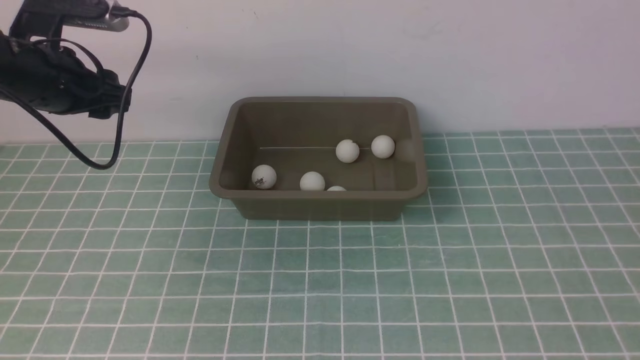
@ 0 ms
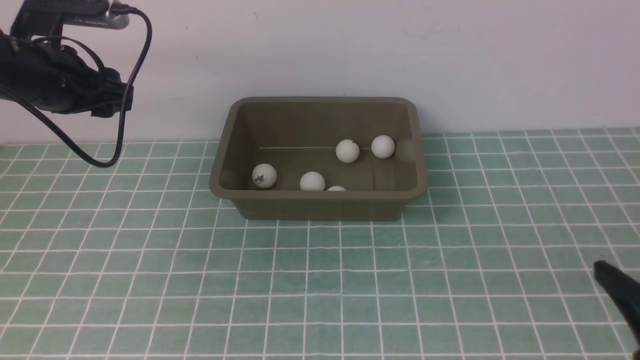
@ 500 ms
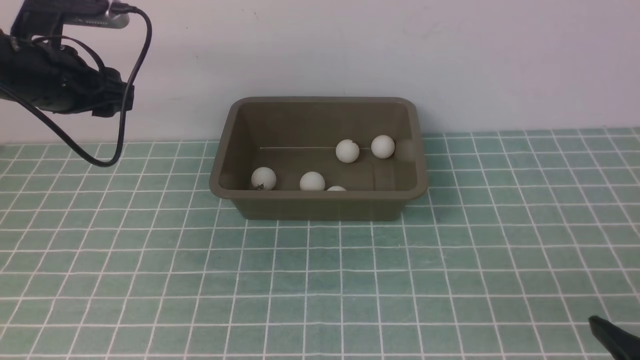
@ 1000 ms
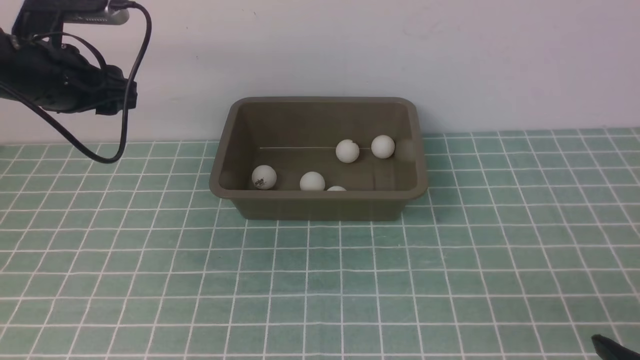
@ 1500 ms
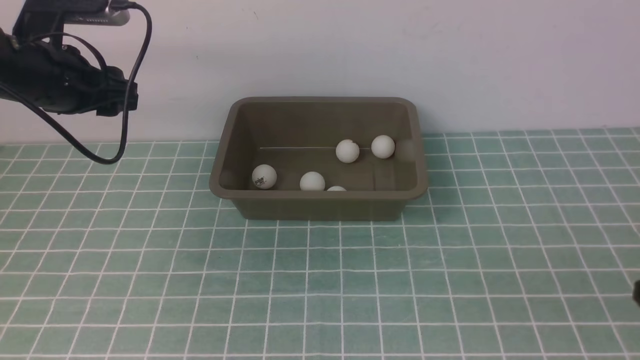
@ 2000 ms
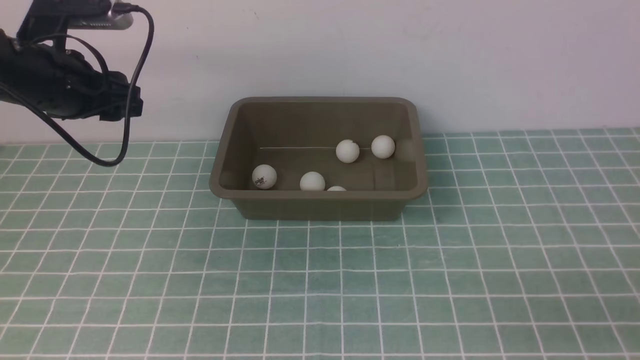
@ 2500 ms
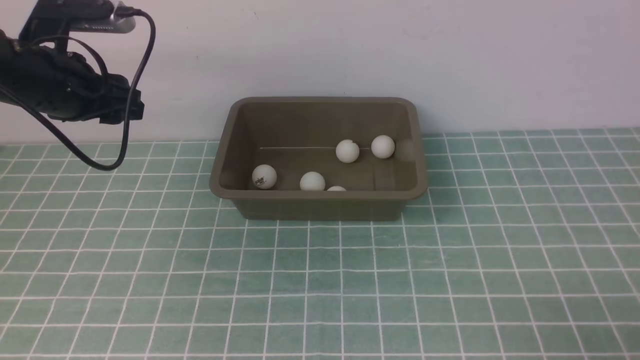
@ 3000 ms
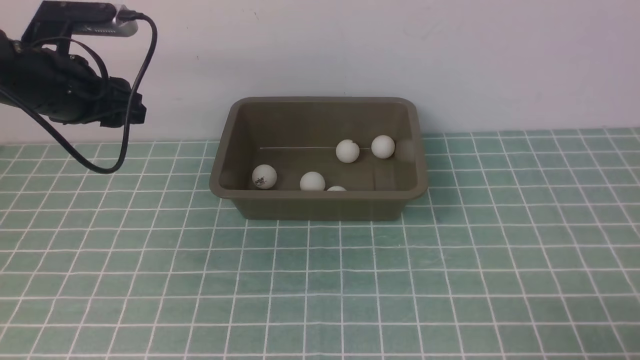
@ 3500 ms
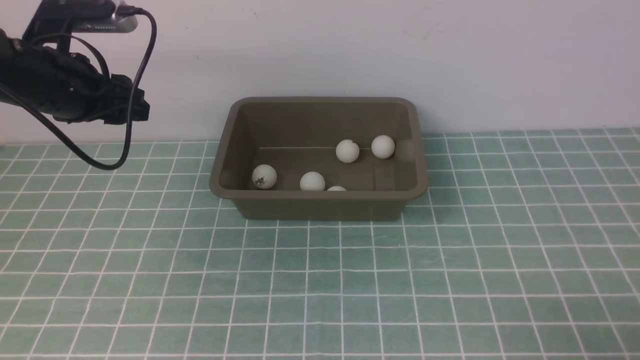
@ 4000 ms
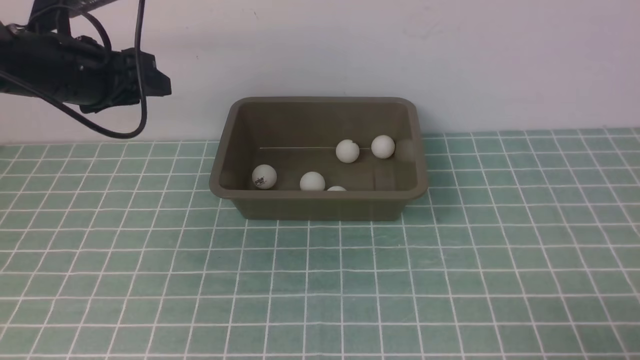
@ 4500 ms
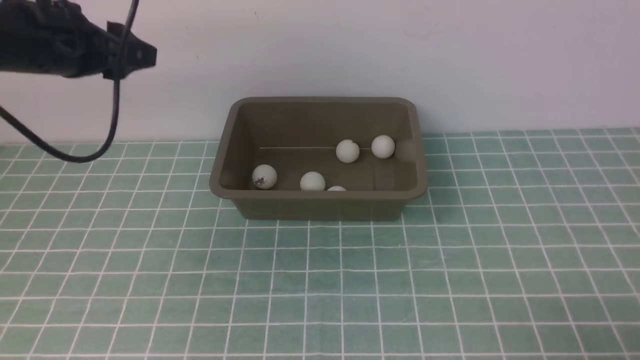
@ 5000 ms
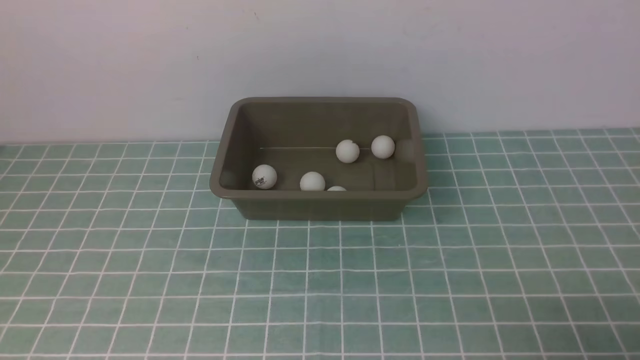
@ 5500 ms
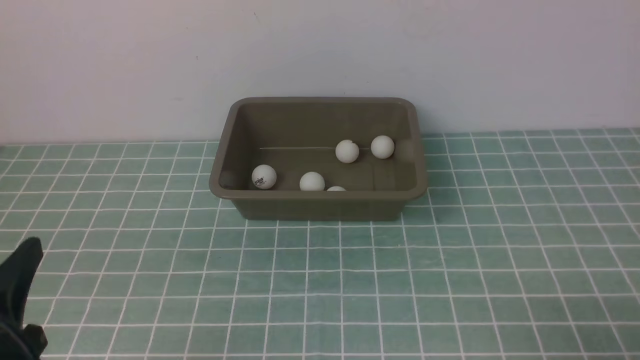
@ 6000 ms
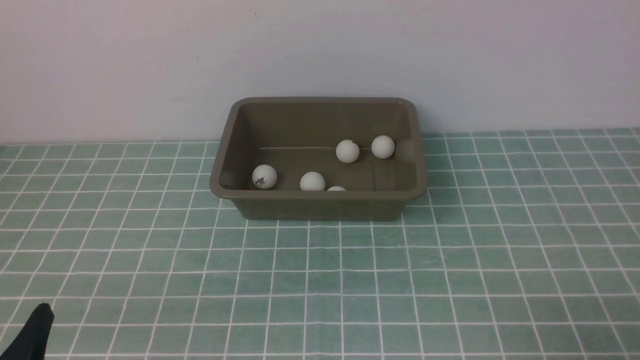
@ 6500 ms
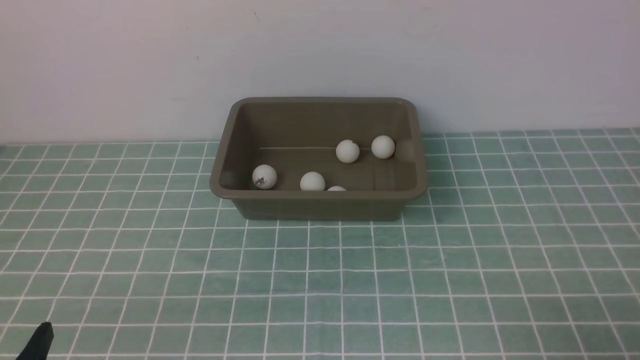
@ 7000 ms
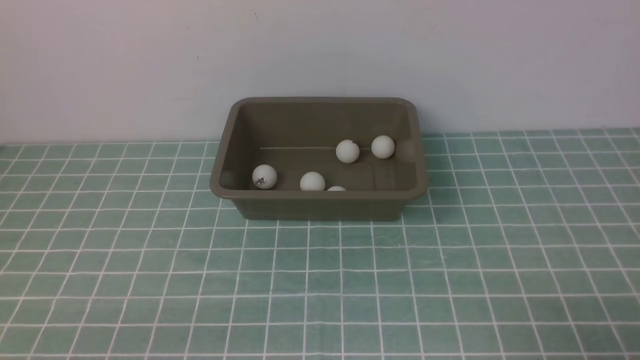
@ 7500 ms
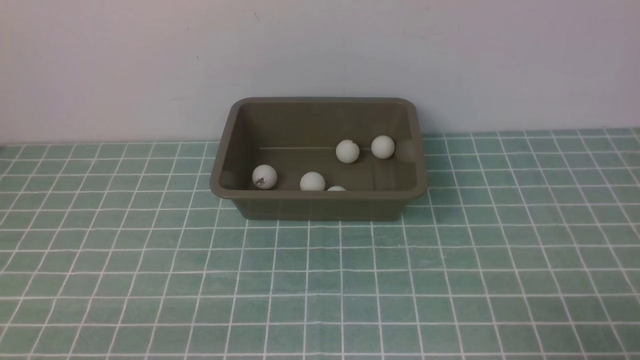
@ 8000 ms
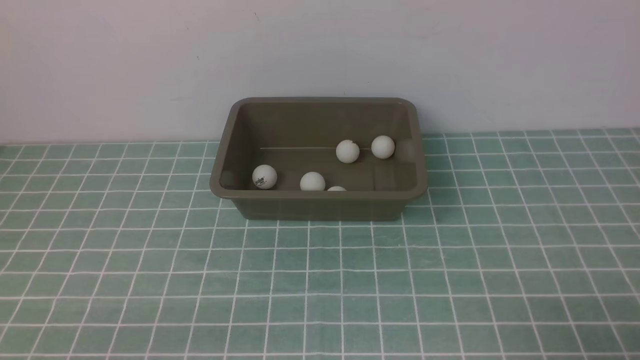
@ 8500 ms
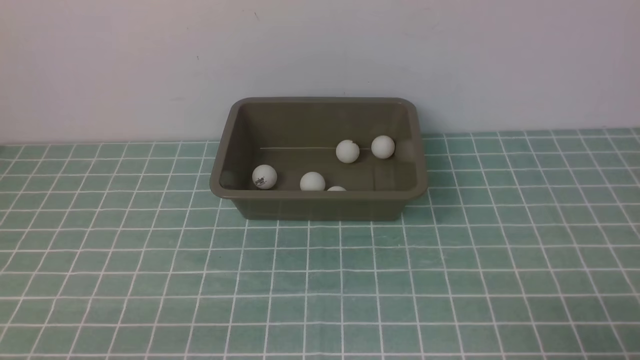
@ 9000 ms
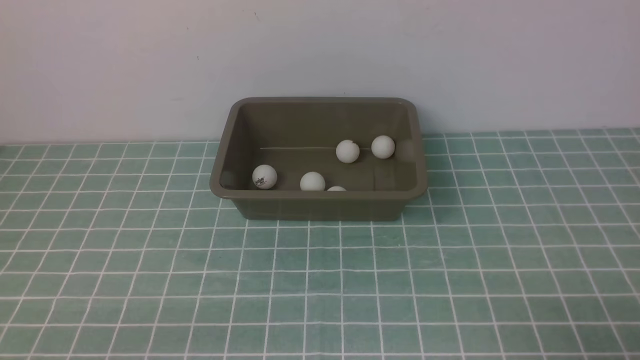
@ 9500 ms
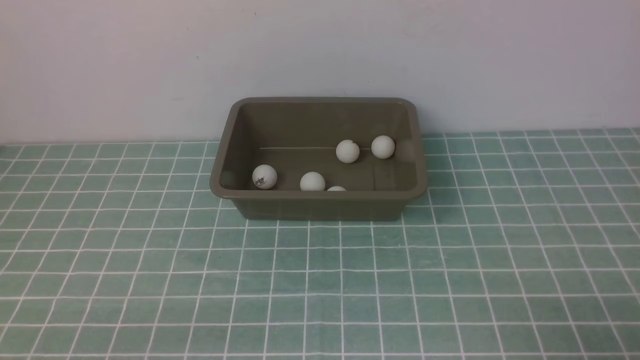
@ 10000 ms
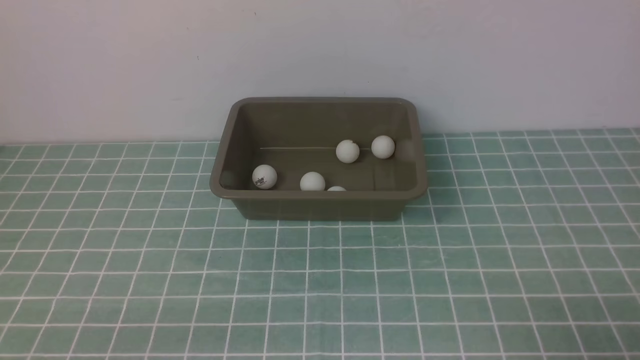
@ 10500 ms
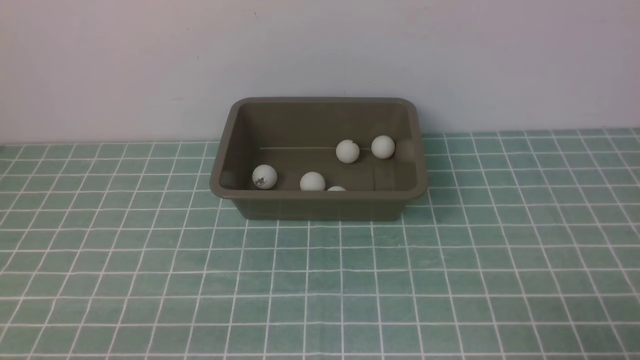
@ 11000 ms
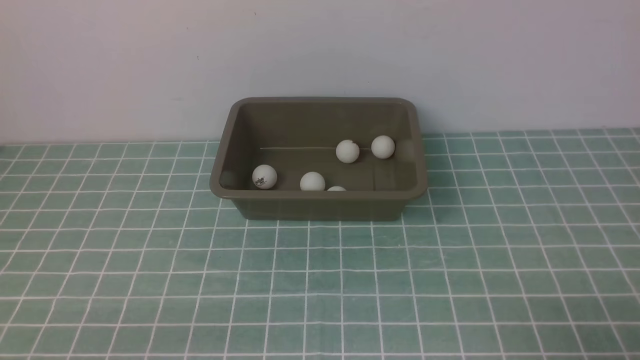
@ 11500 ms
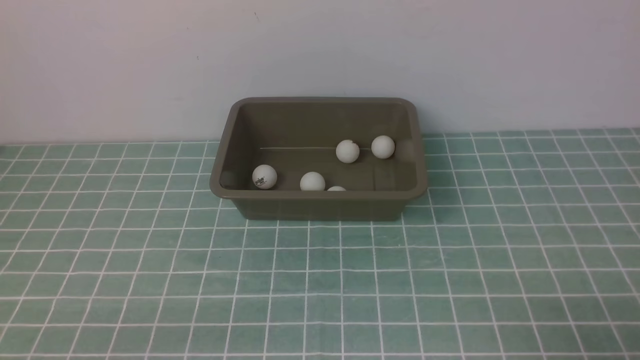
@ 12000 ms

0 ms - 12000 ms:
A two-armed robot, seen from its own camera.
2000 ms - 4000 ms: The grippers stay close to where they were, moving slightly.
4000 ms - 6000 ms: The left gripper goes approximately 35 cm backward and downward.
6000 ms - 8000 ms: There are only small adjustments of the grippers.
8000 ms - 12000 ms: Neither gripper changes place.
